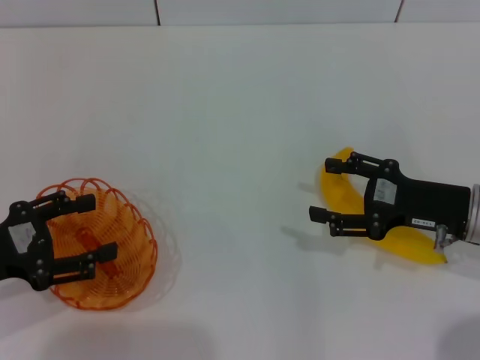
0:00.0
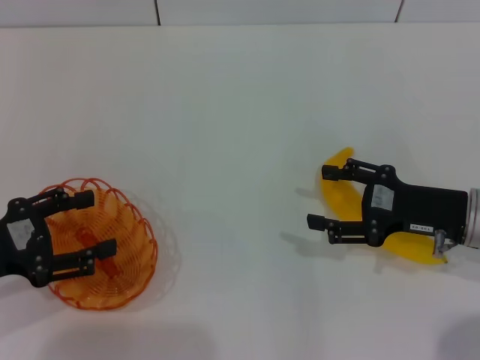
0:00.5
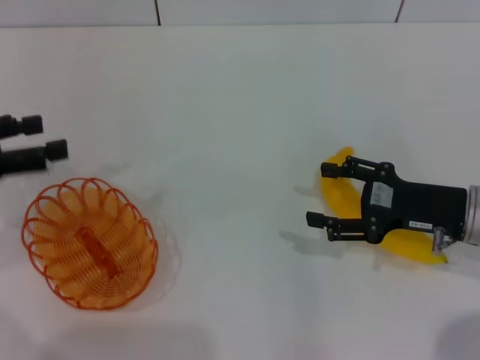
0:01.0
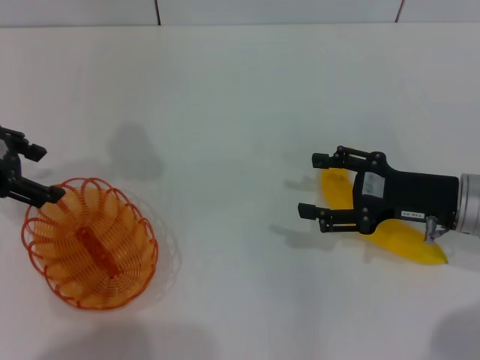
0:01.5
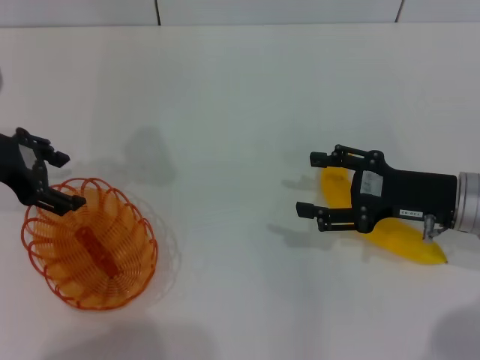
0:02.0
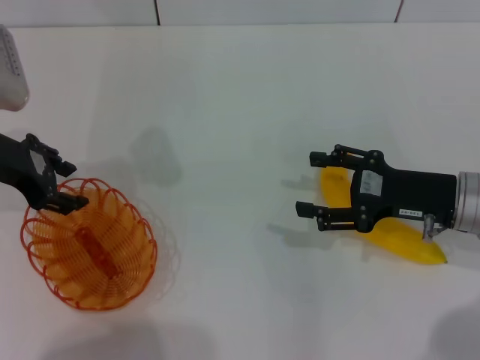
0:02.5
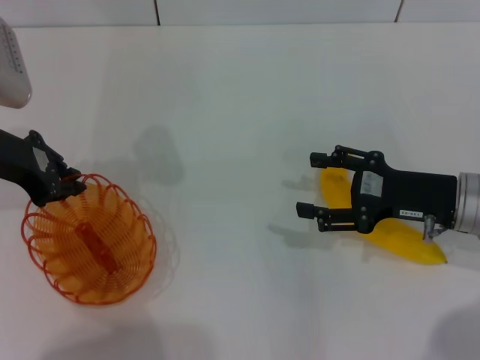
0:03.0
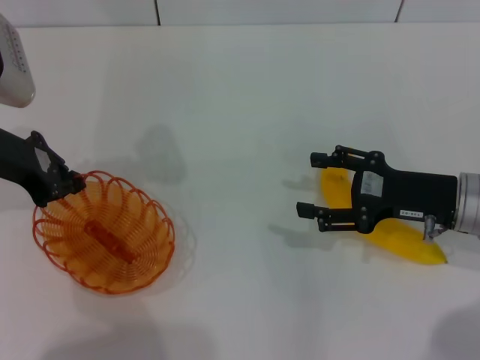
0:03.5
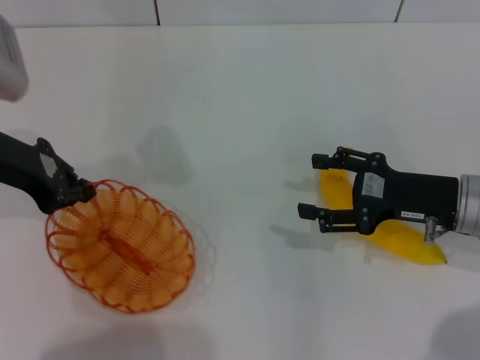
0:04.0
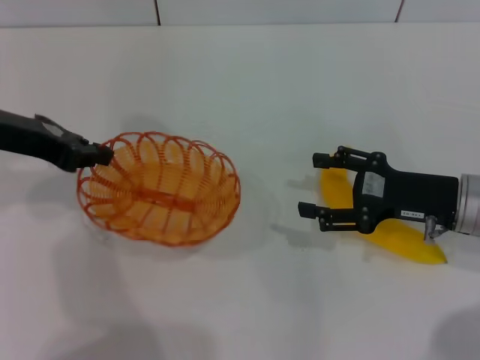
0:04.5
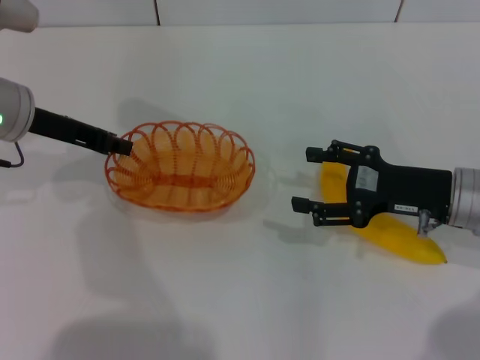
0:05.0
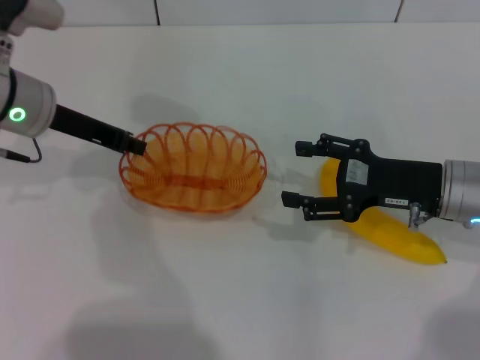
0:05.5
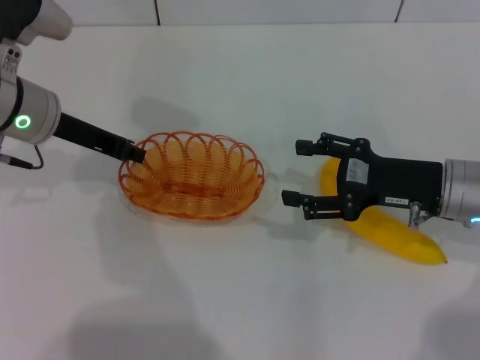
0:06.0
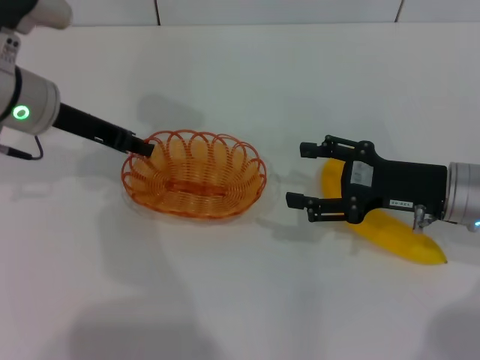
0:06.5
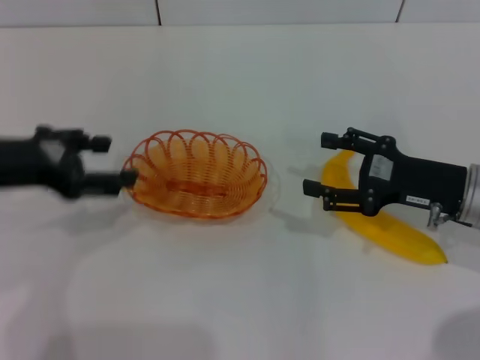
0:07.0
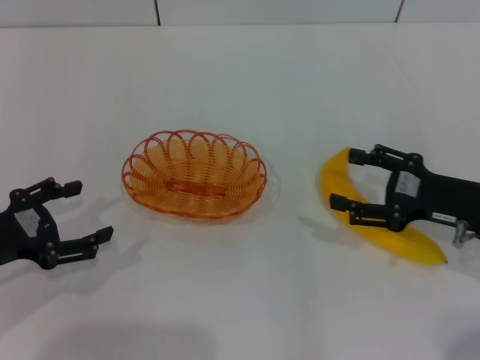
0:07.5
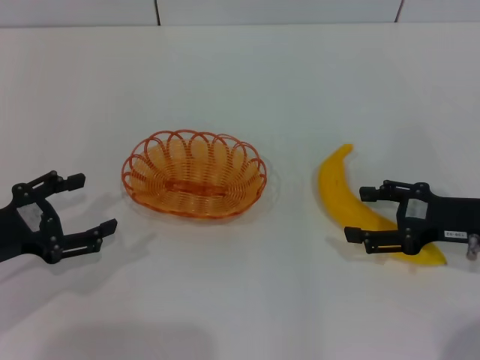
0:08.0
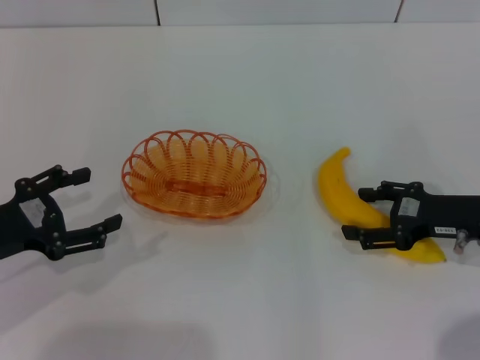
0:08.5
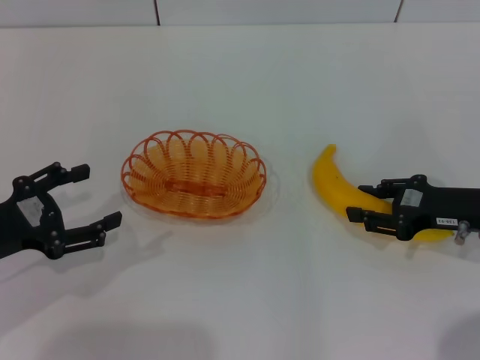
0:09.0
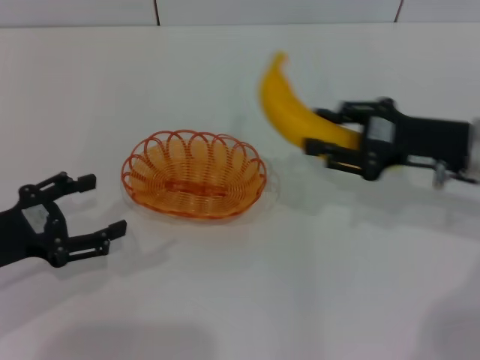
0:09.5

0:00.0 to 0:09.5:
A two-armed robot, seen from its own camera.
Step, 0:00.0 to 0:04.0: Pick up the basket with the left gripper.
Step, 0:04.5 to 0:06.5: Place the basket in the center of view with the left gripper.
Step, 0:07.0 to 0:09.0: Pick up the banana with the right gripper.
0:00.0 to 0:02.0: The left gripper travels forward and upward by approximately 15 cm.
0:02.0 to 0:04.0: The left gripper closes its fingers.
0:04.0 to 0:05.5: The left gripper shifts by roughly 5 cm.
0:05.5 to 0:07.5: The right gripper ends up approximately 5 cm from where it was, while the left gripper is displaced backward, to the left and downward by roughly 20 cm, and opens its fingers.
0:07.5 to 0:09.5: The right gripper goes about 5 cm forward, and closes up.

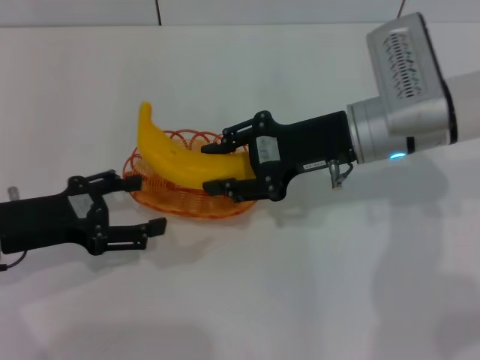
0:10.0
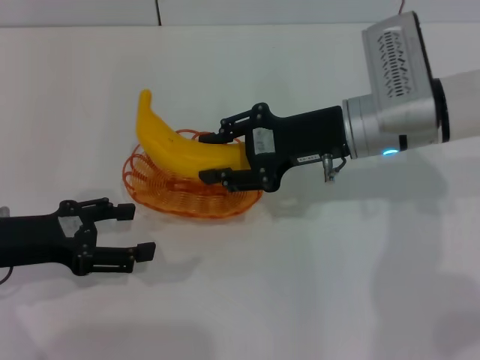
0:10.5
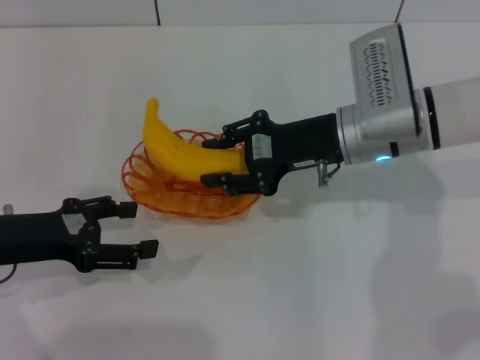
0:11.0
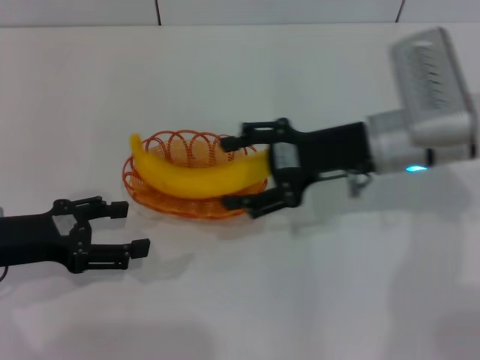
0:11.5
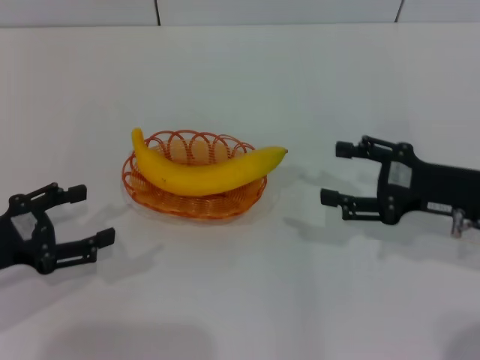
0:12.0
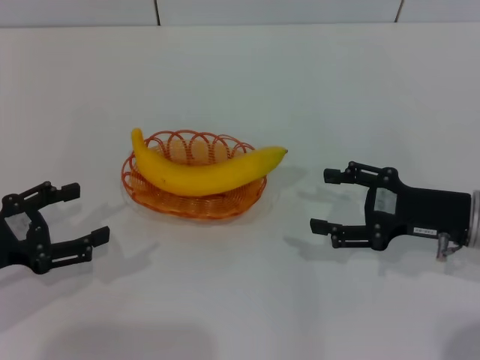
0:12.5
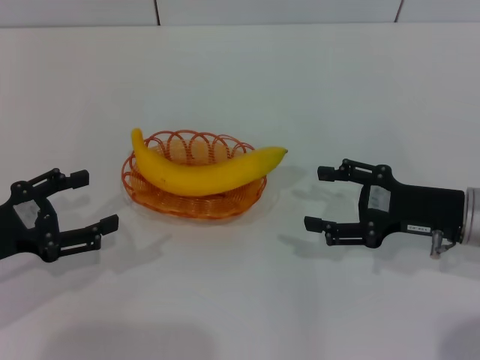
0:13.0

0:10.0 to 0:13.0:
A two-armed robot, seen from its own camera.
0:10.0 to 0:11.5: The right gripper opens up.
0:11.5 to 0:13.0: The right gripper moves to the right, backward and downward, roughly 10 cm.
